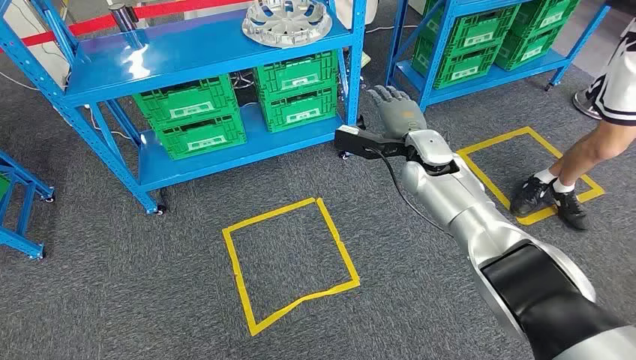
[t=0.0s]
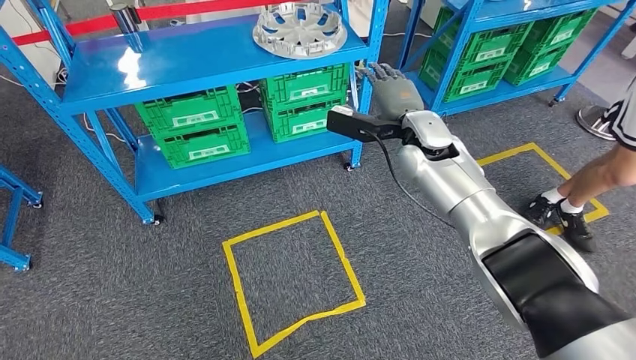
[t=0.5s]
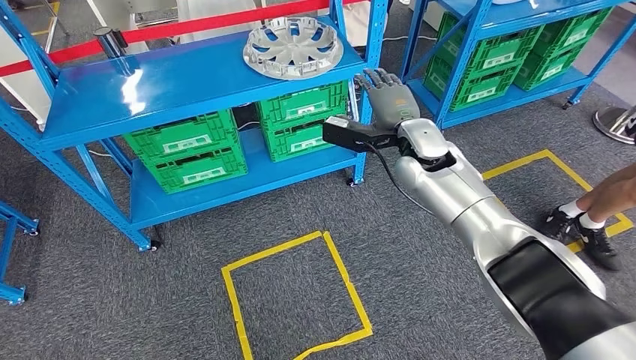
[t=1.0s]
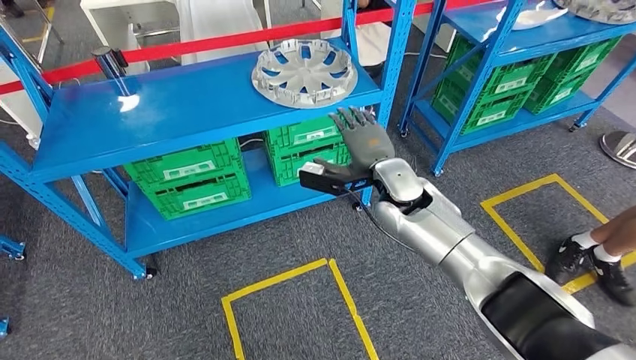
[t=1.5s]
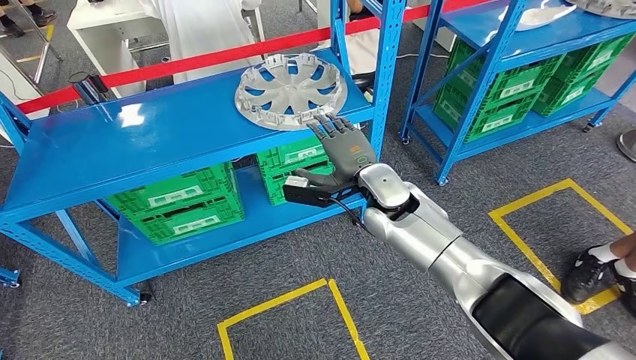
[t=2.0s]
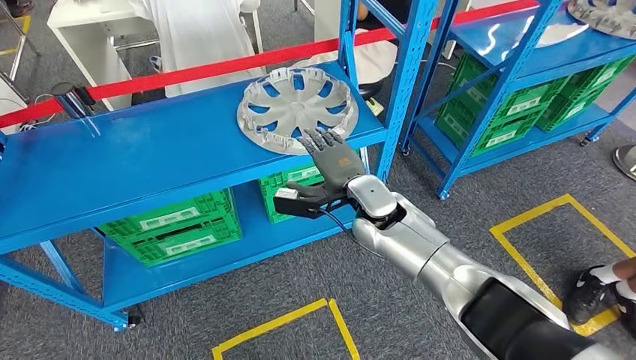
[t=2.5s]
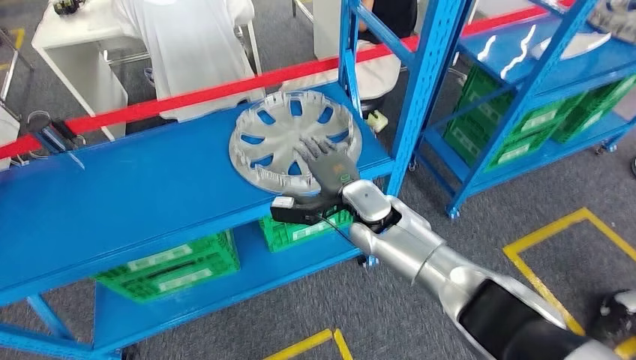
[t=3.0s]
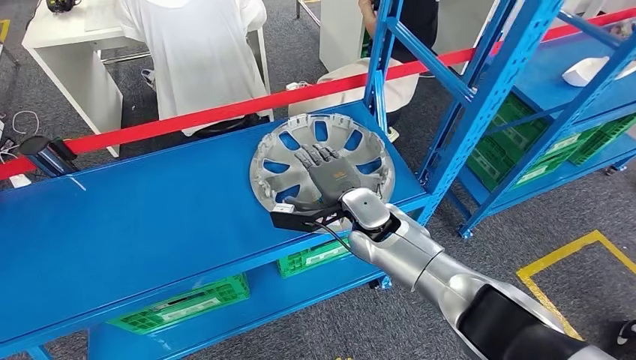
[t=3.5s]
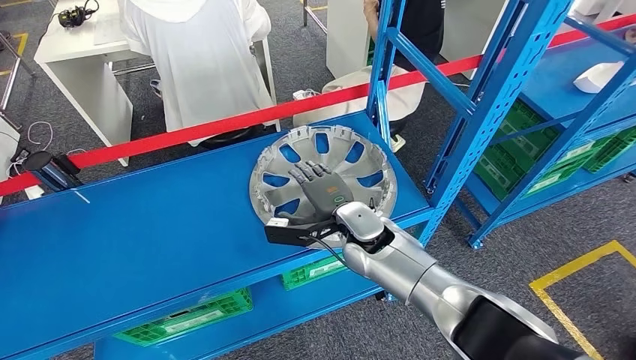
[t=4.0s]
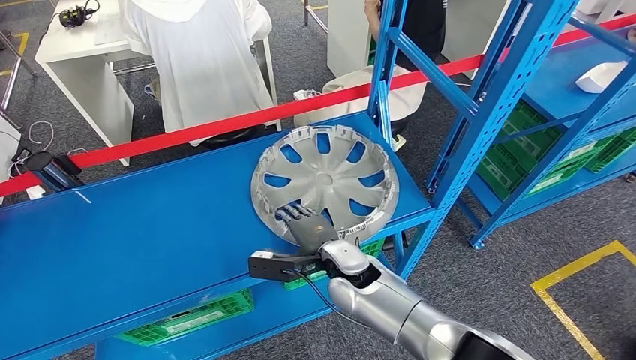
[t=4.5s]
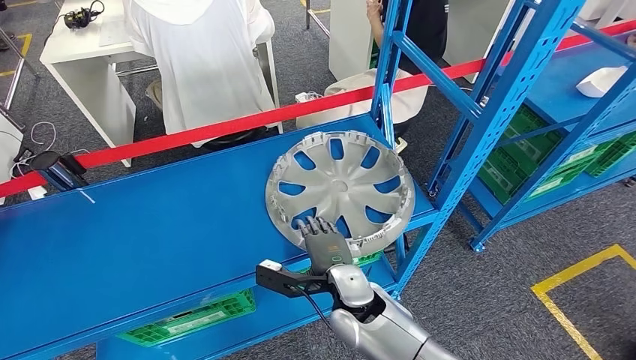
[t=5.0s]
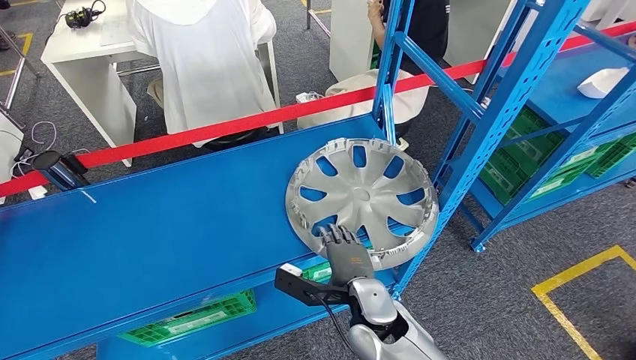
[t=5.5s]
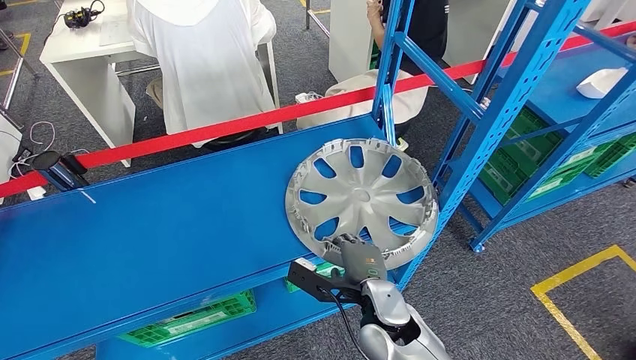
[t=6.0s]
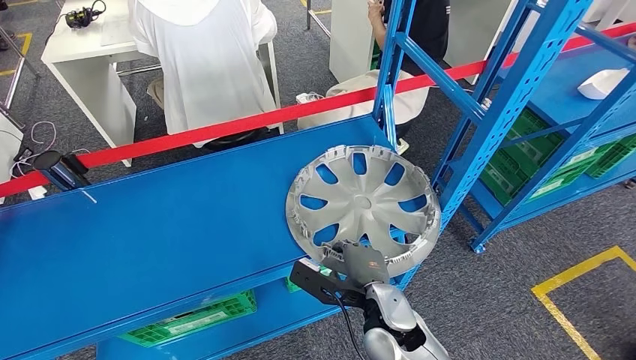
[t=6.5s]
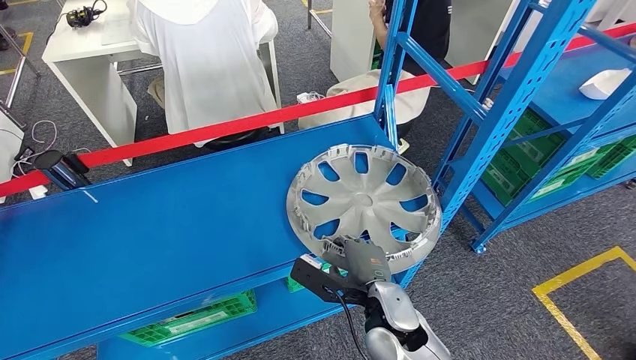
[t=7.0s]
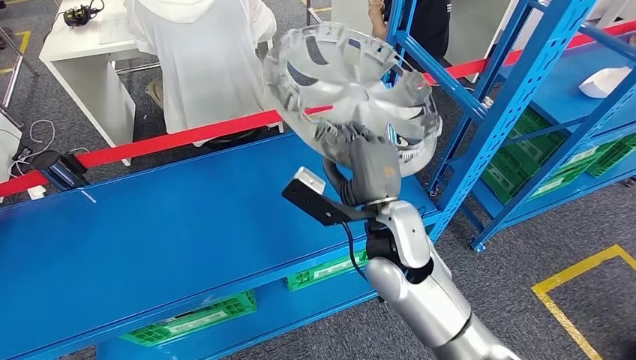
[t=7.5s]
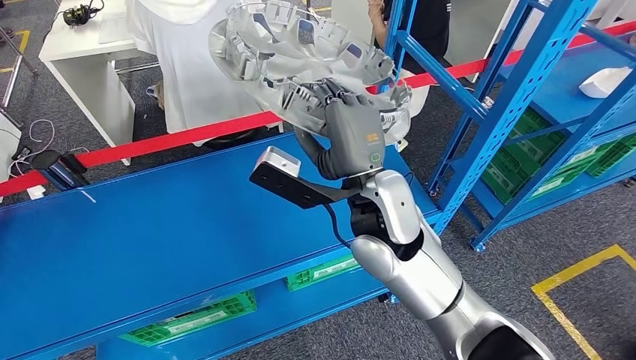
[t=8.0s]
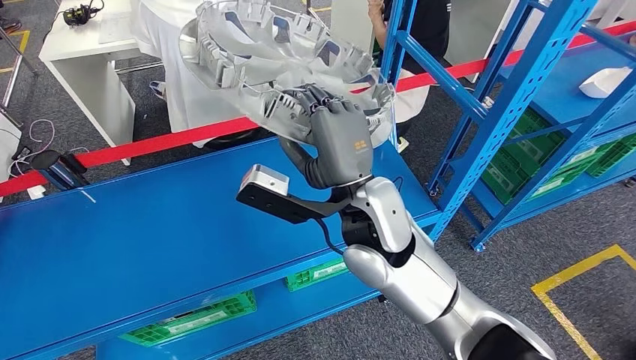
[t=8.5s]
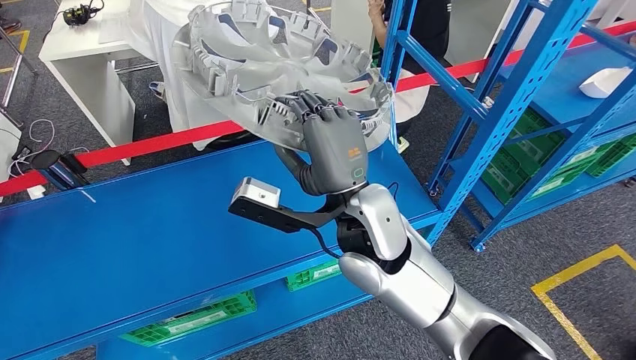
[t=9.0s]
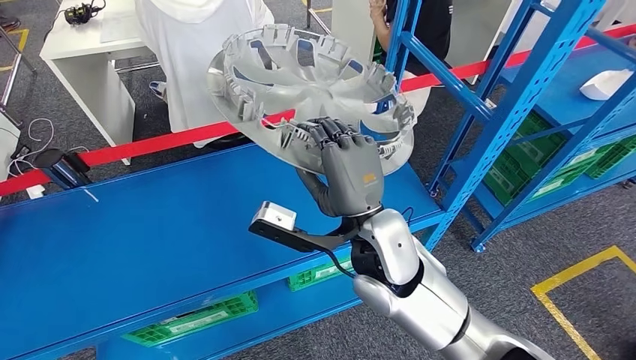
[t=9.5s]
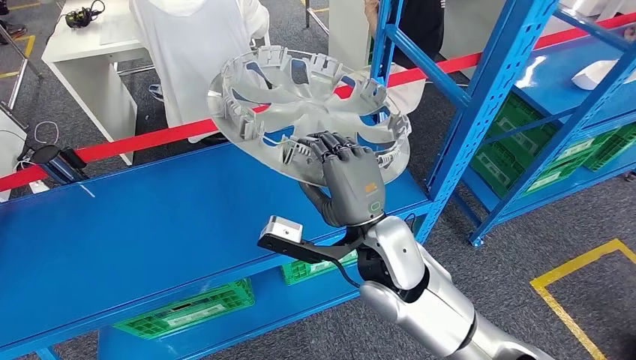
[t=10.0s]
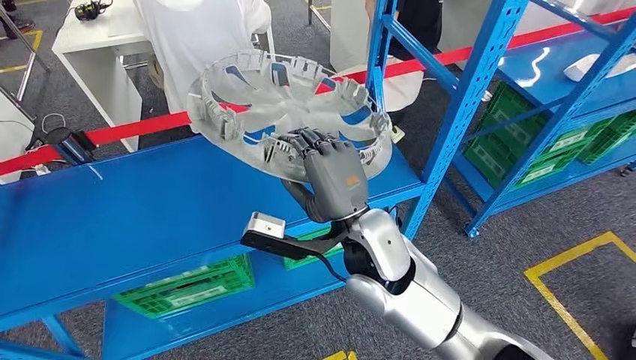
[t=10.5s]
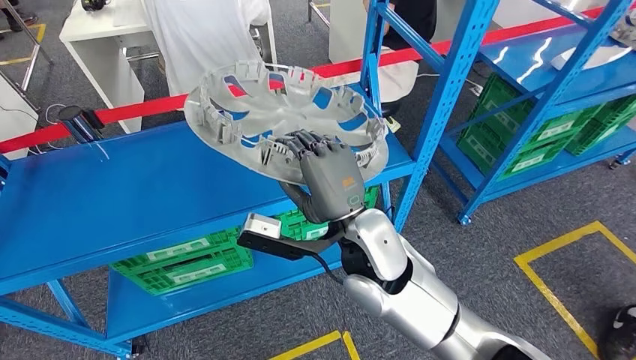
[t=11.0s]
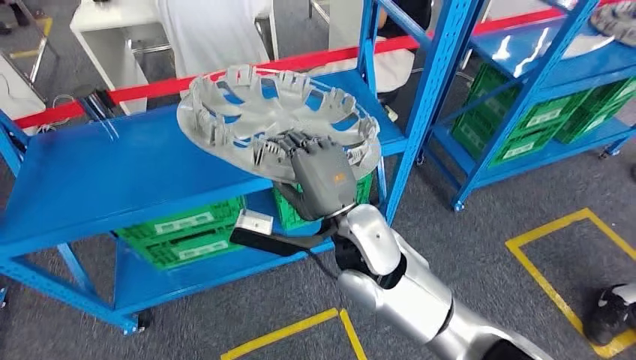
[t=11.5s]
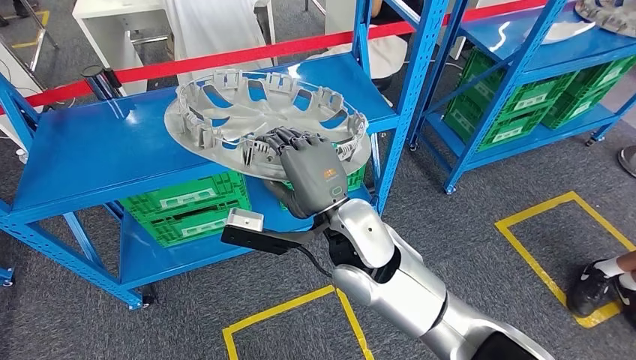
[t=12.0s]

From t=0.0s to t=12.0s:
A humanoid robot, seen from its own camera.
Step, from t=0.0s to t=8.5s: Take small components from the rack.

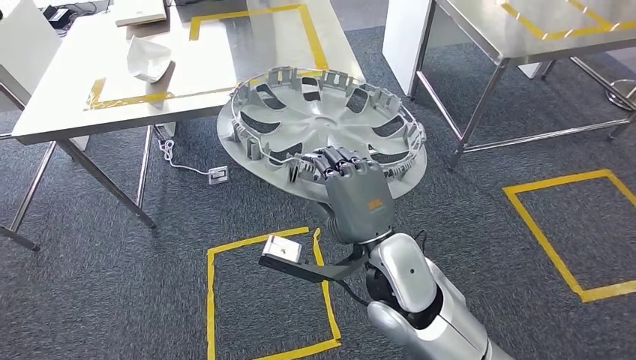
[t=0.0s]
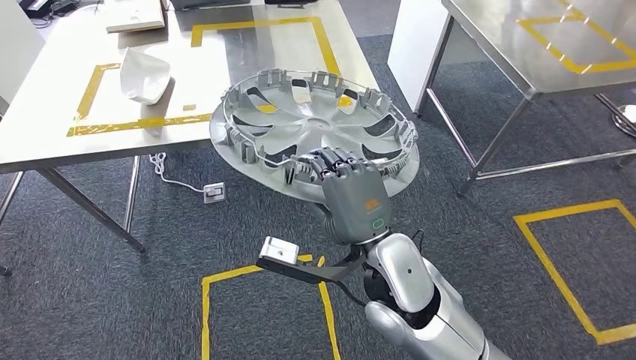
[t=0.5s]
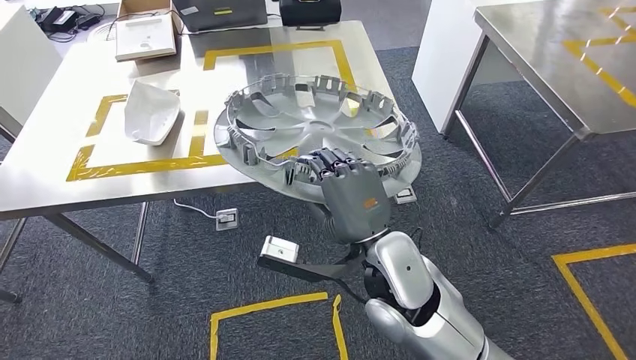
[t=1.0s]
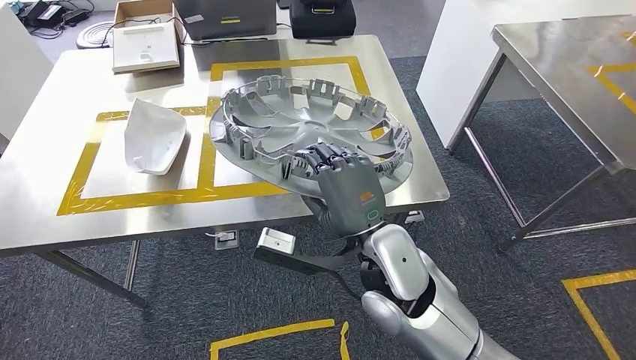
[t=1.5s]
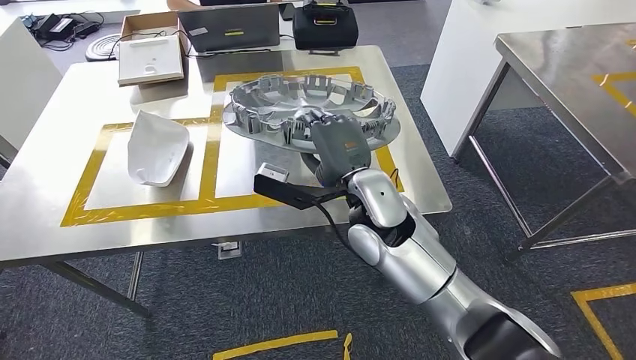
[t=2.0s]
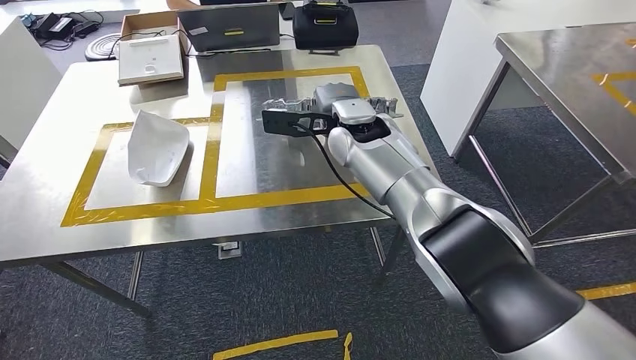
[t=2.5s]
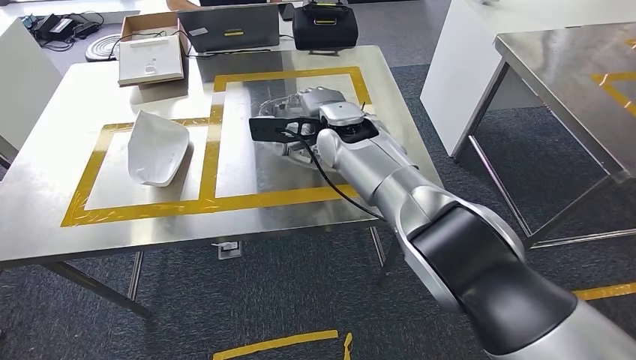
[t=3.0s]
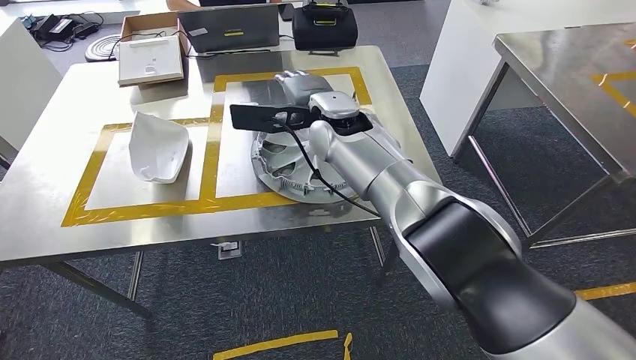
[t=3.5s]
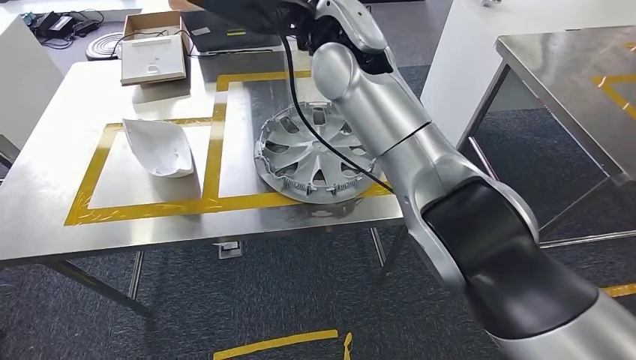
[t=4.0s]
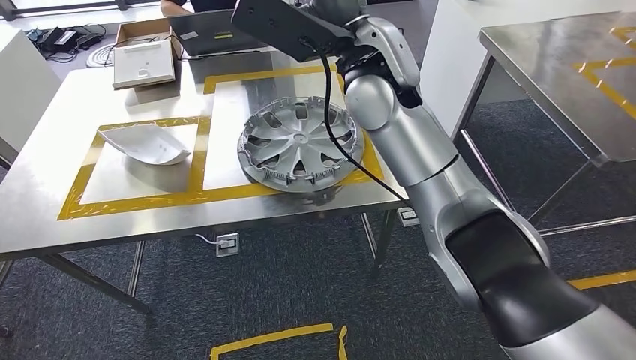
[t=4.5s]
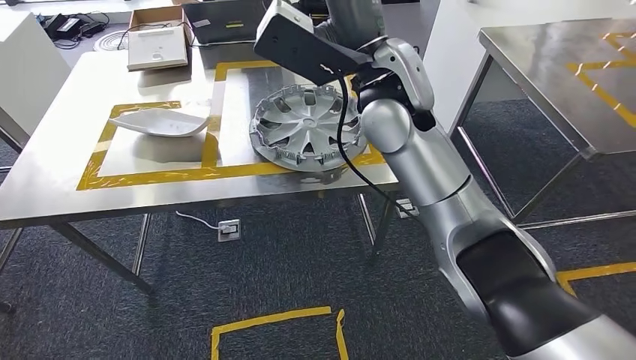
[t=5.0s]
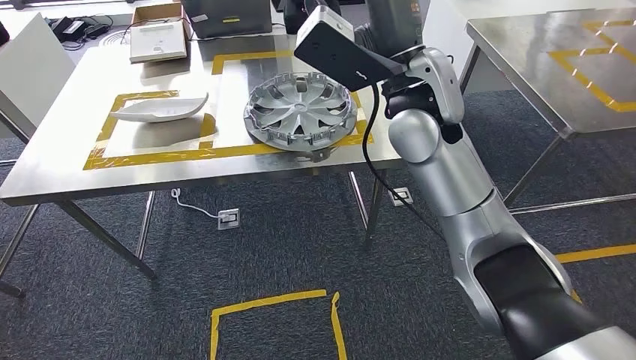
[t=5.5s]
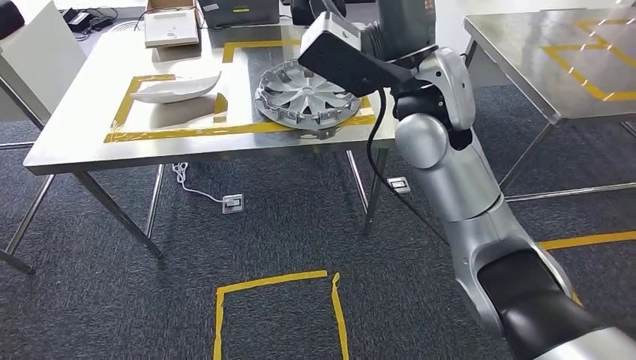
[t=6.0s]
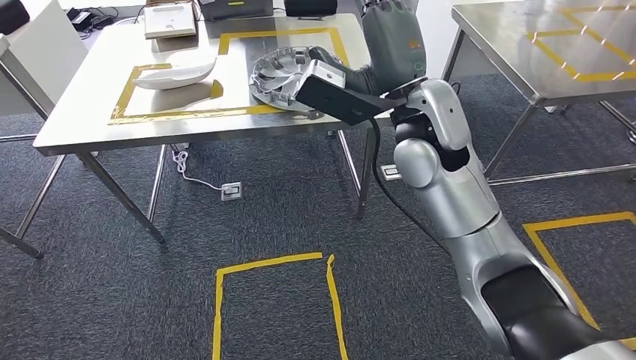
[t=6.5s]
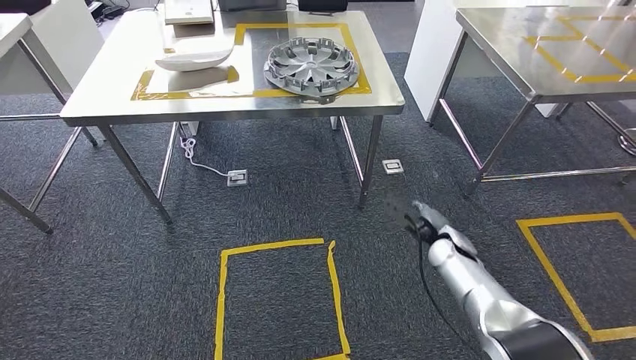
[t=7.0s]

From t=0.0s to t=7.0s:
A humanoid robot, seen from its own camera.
Step, from t=2.5s to t=4.0s: Insert the small parts into the corresponding holes on the workbench.
Step, from t=6.0s to t=7.0s: Move to the initial position of the workbench.
From t=2.0s to t=3.5s: The right hand heads forward and upward, covering roughly 15 cm.

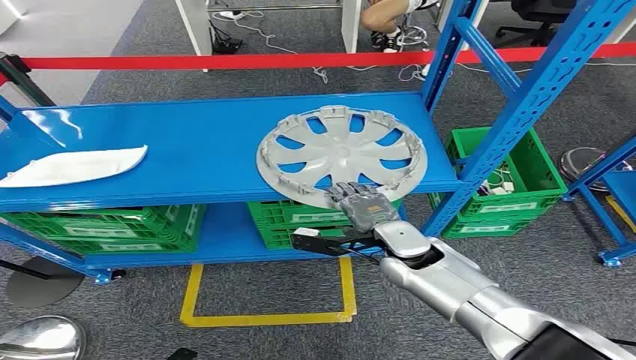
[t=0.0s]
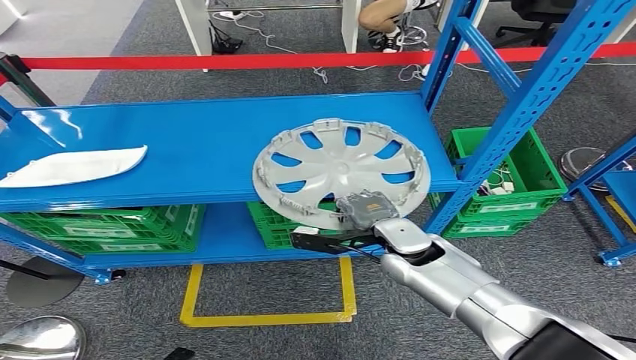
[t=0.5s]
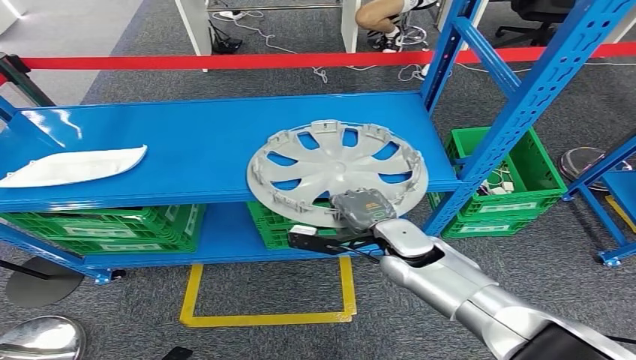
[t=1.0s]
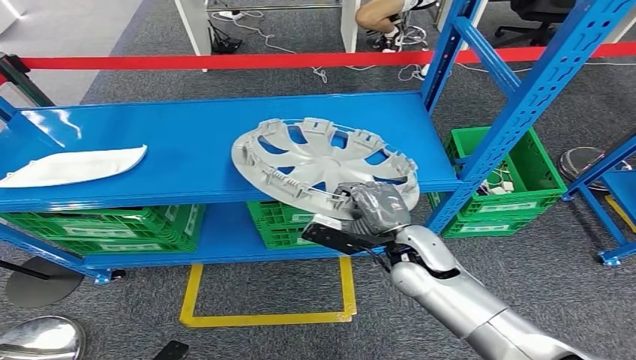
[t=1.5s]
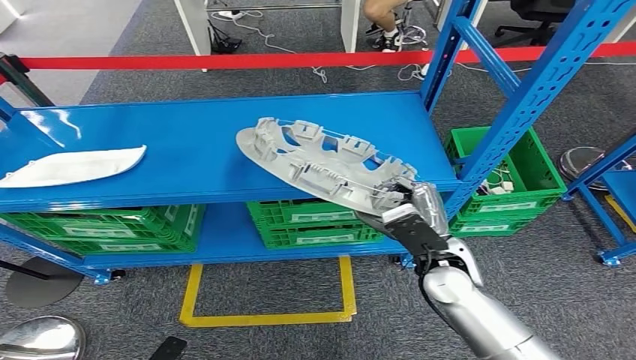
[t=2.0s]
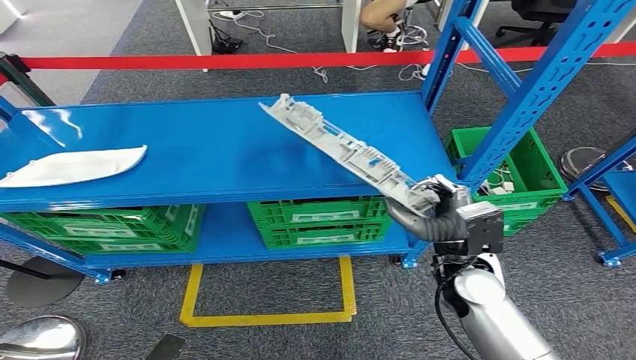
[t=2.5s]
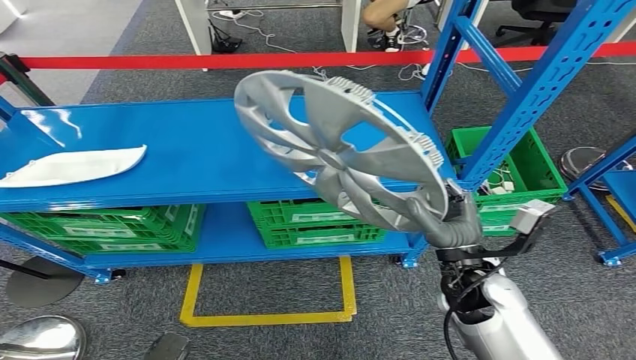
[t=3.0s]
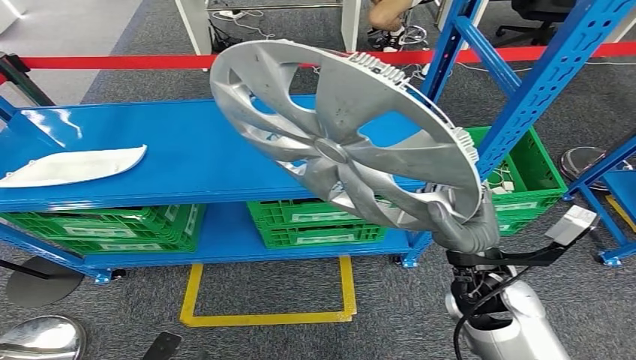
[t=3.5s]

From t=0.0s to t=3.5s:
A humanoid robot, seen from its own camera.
From t=2.0s to t=3.5s: The right hand ends up about 5 cm from where it was.
